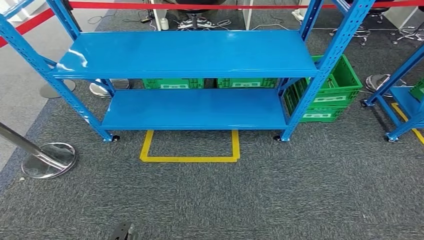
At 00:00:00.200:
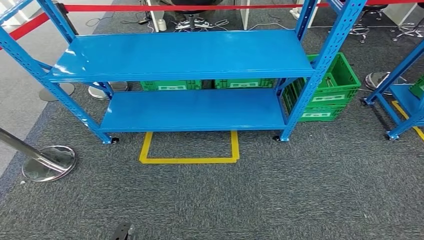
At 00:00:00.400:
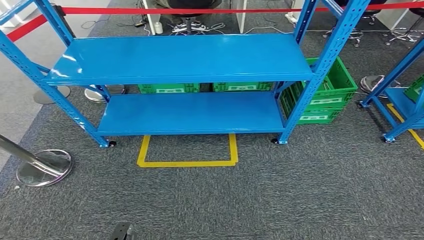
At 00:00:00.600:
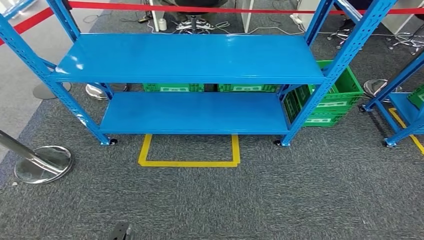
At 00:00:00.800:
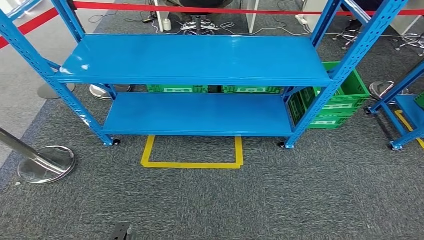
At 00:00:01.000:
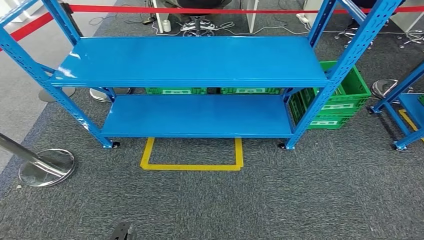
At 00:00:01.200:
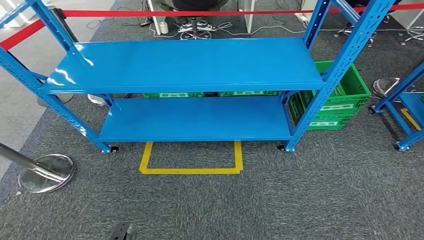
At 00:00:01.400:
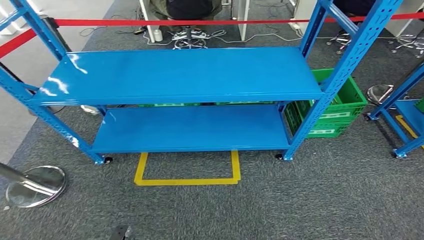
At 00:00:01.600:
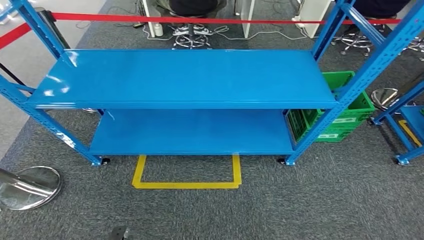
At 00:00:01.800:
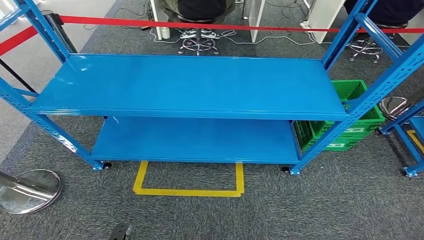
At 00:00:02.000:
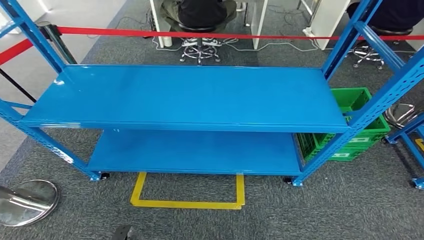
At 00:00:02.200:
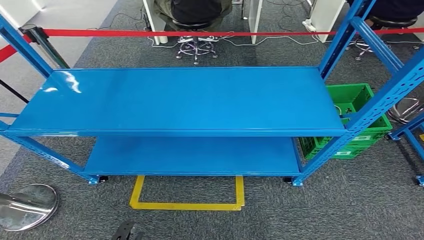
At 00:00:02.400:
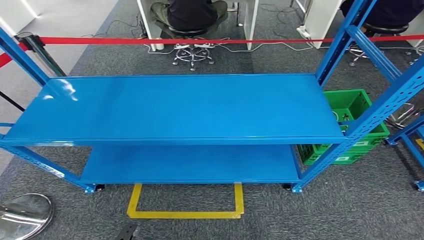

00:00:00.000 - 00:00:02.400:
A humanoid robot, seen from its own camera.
Step, 00:00:00.000 - 00:00:02.400: Return to the initial position at the workbench.
